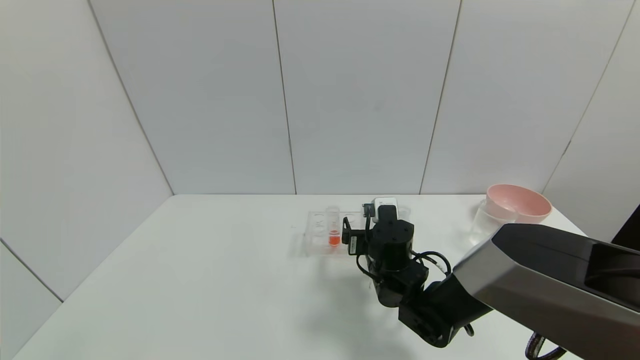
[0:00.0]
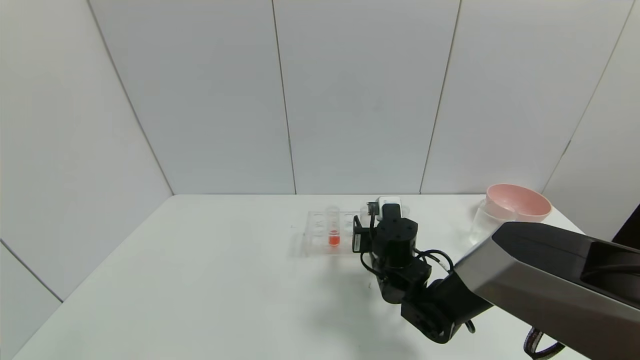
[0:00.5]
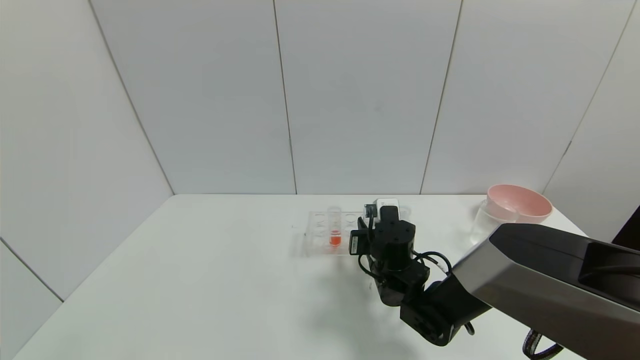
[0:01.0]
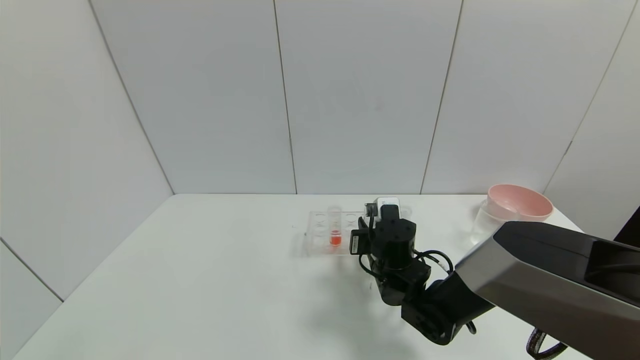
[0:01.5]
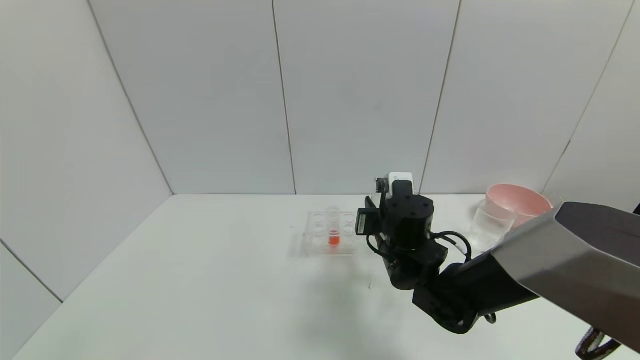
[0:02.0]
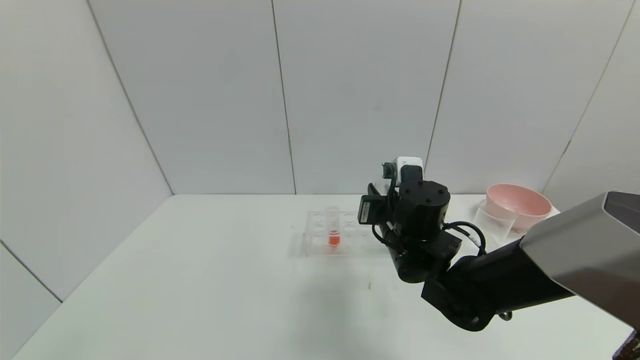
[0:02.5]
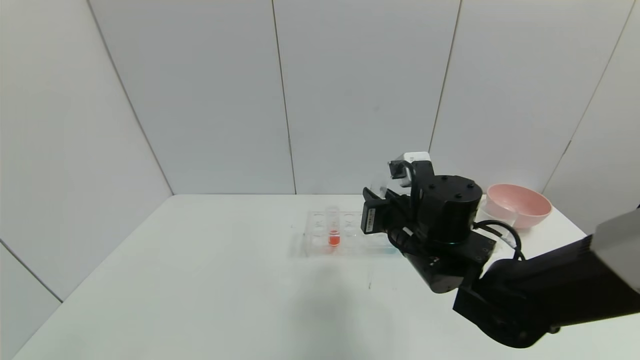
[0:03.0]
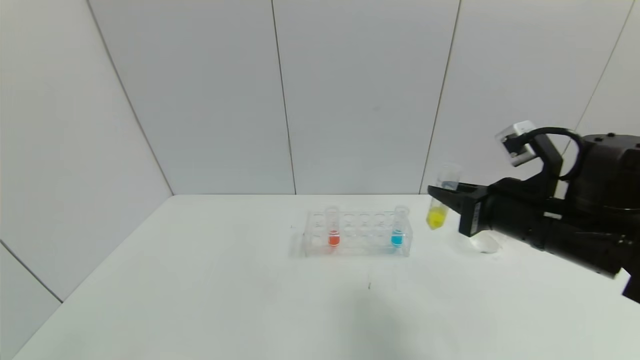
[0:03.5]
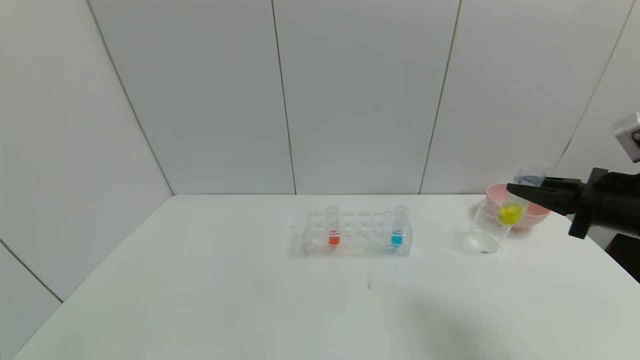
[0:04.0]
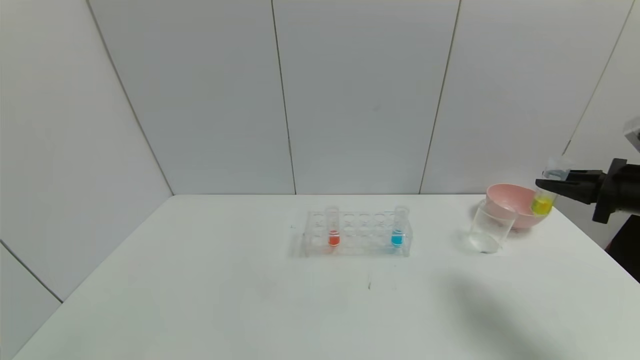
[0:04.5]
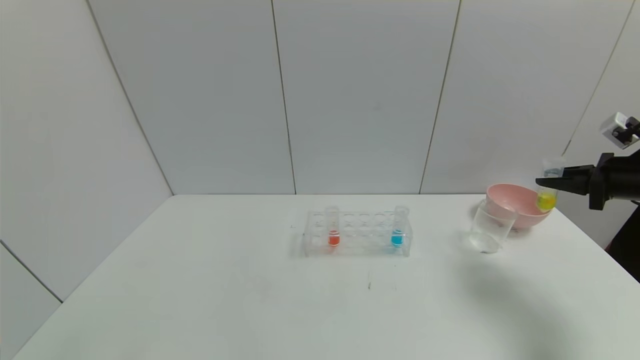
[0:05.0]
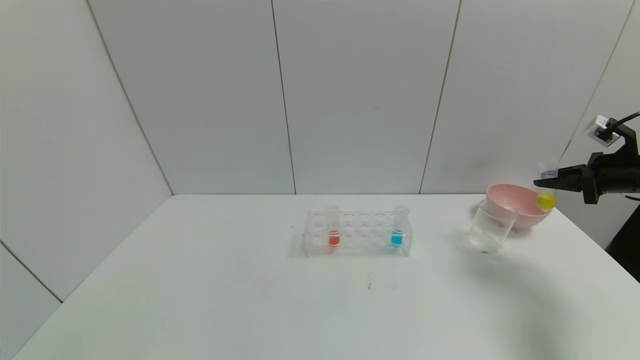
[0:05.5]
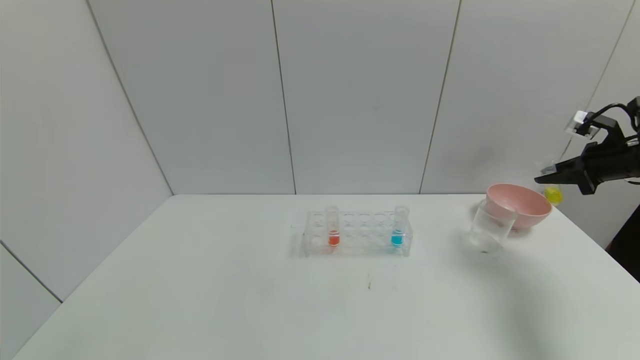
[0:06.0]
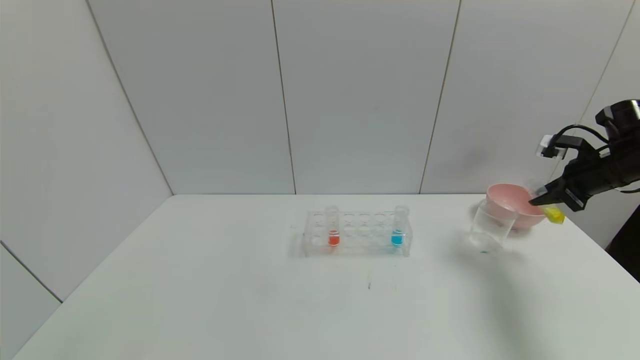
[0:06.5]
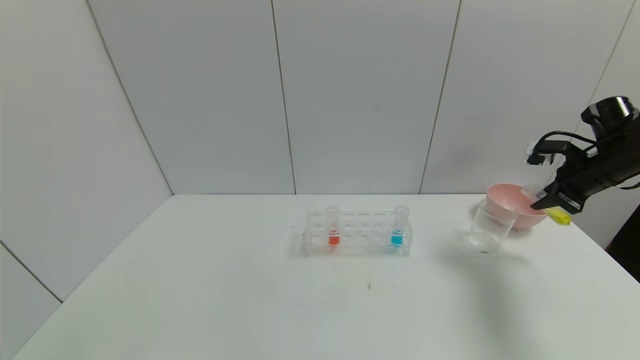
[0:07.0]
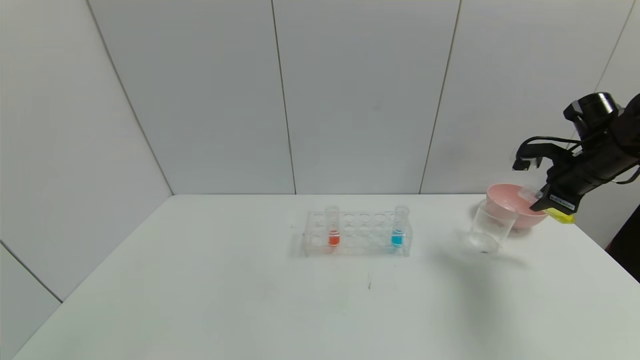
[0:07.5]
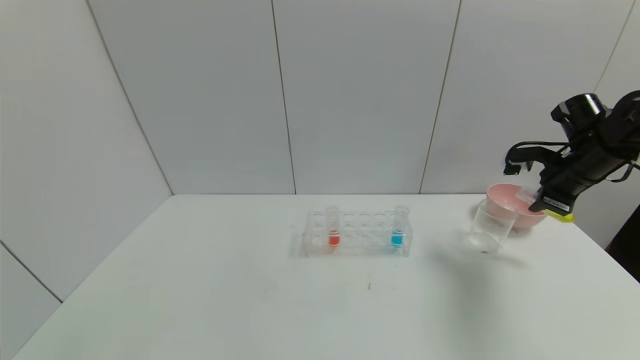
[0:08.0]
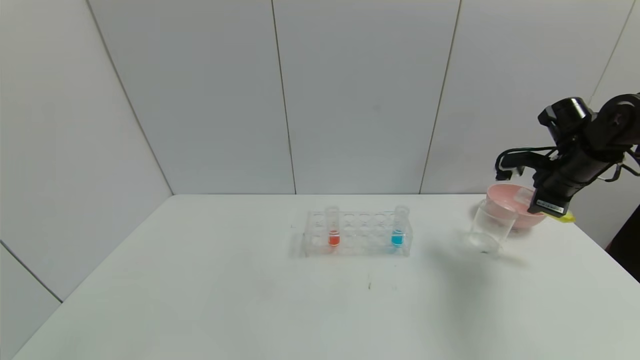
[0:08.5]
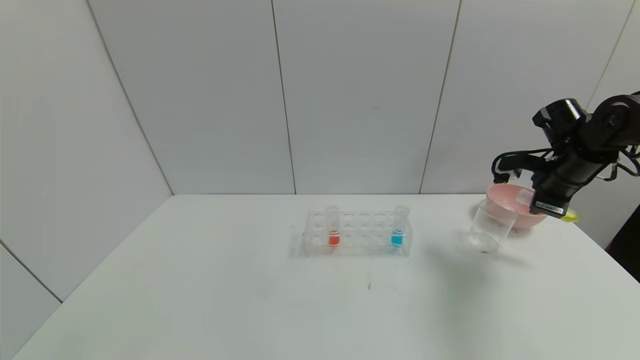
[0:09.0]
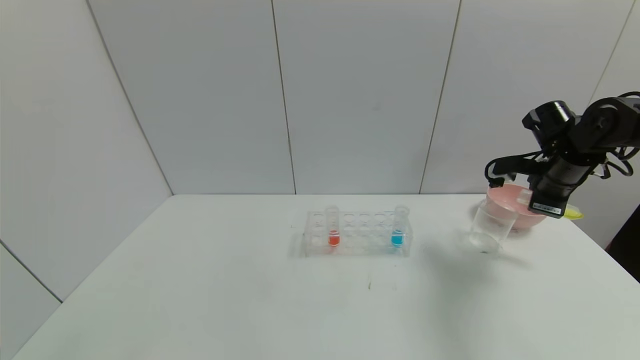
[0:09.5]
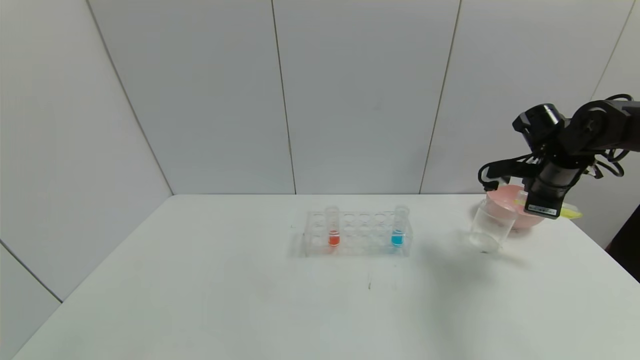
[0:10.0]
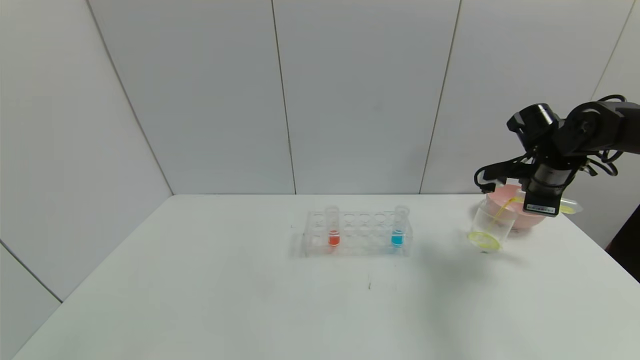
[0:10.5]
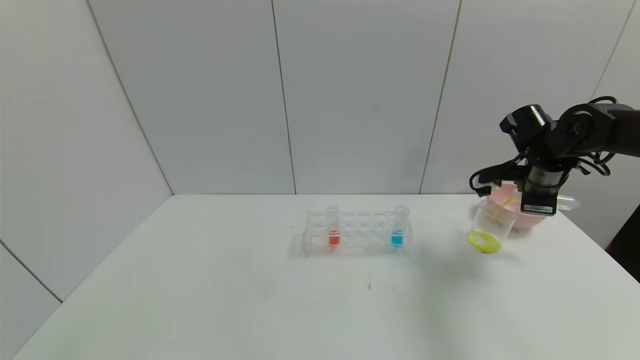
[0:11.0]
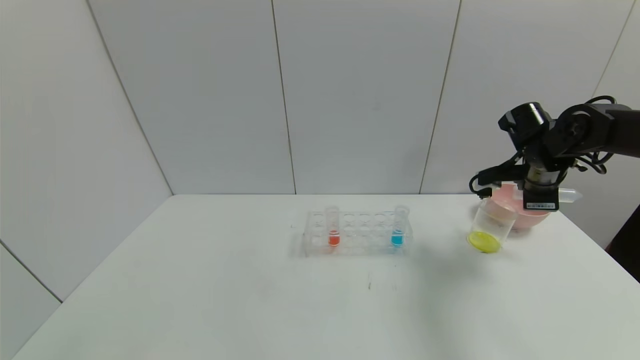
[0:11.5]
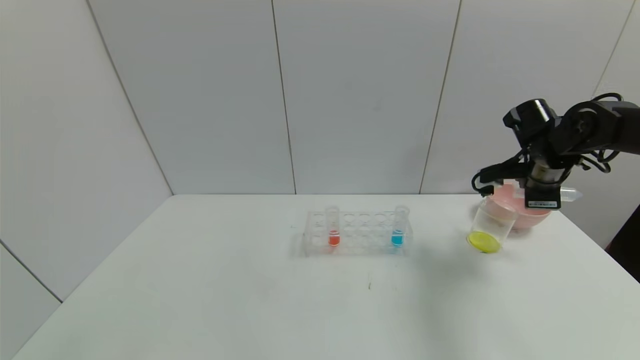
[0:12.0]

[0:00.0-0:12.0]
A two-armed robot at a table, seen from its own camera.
Task of the whole recording: pick up the test tube with yellow pigment and the test tube with blue pigment by grippers and pour them into the beaker.
Step, 0:01.5 to 0:11.5: Pour the yellow reagent into the graduated cylinder with the right gripper.
0:00.0 to 0:02.0: The right gripper travels upward by some 5 cm, and closes its fingers.
0:02.0 to 0:04.0: The right gripper shifts about 30 cm to the right and upward.
0:04.0 to 0:06.0: The right gripper moves forward and to the right, about 20 cm.
0:06.0 to 0:08.0: The right gripper travels to the left by roughly 10 cm.
0:08.0 to 0:10.0: The grippers make only small movements.
0:10.0 to 0:12.0: The grippers make only small movements.

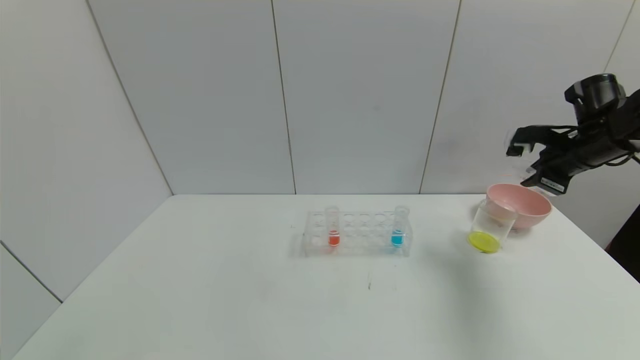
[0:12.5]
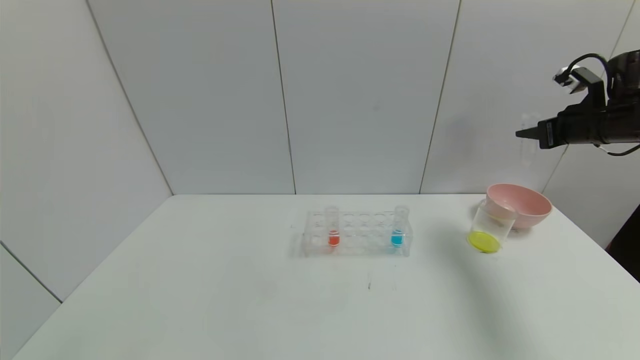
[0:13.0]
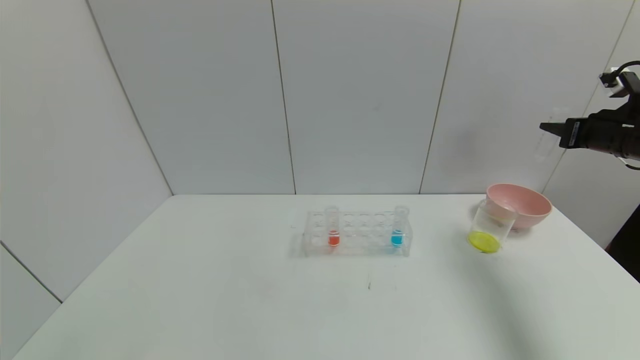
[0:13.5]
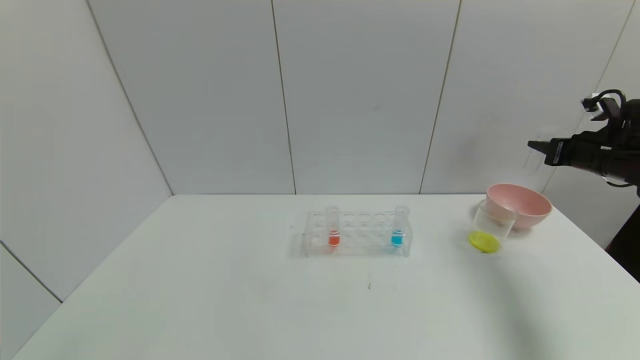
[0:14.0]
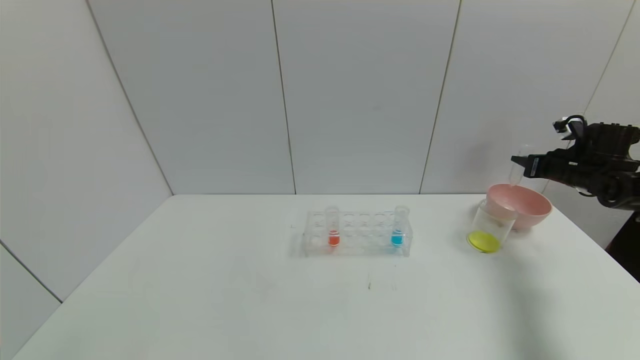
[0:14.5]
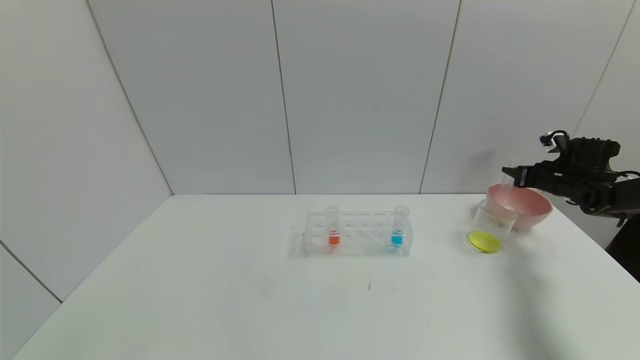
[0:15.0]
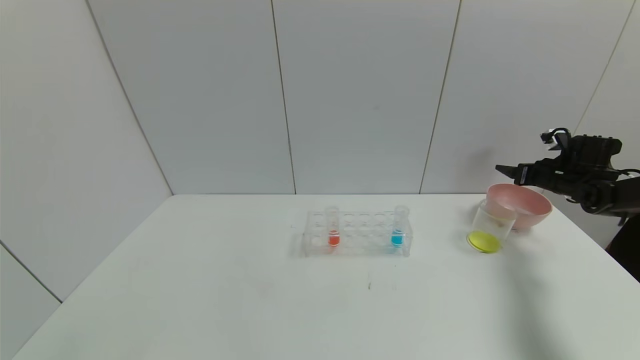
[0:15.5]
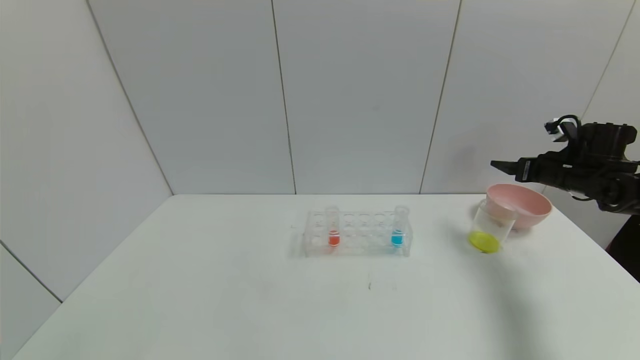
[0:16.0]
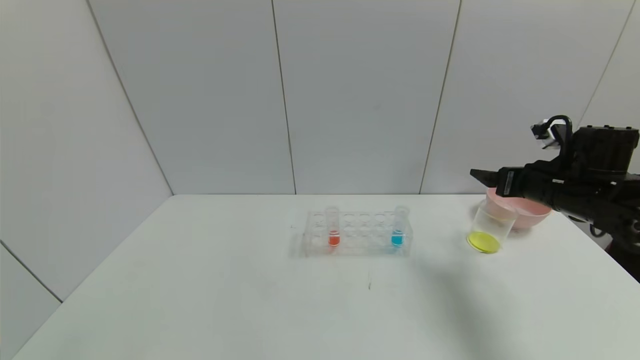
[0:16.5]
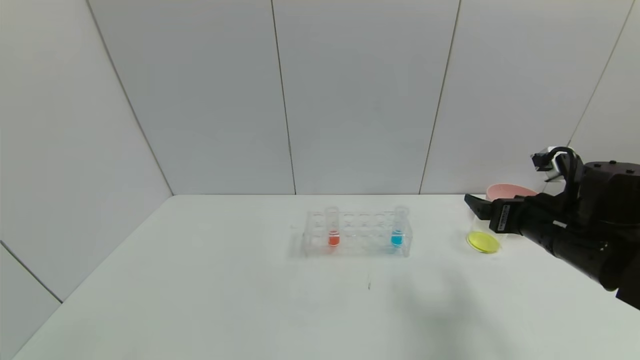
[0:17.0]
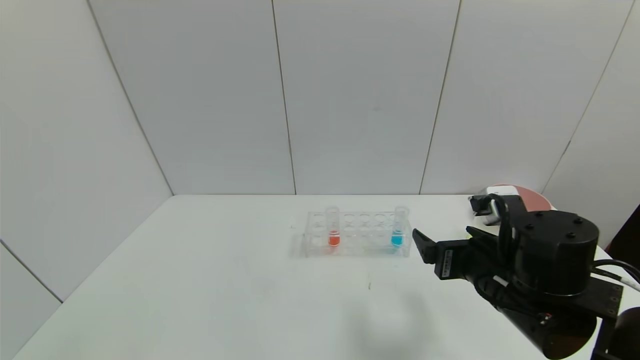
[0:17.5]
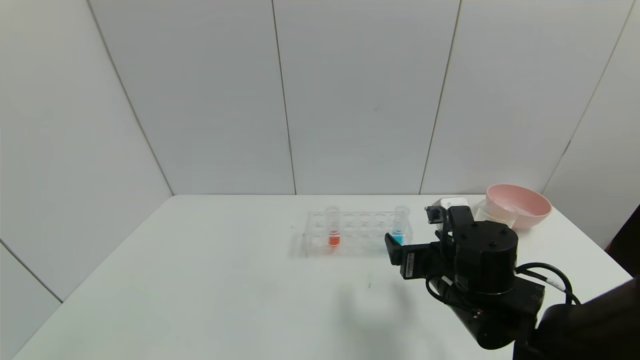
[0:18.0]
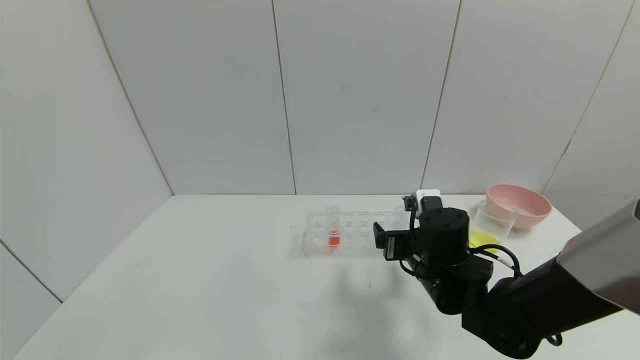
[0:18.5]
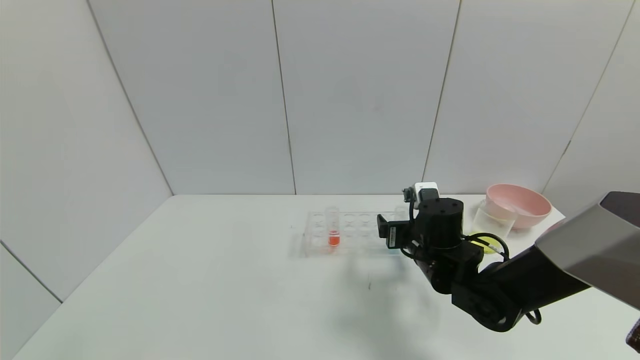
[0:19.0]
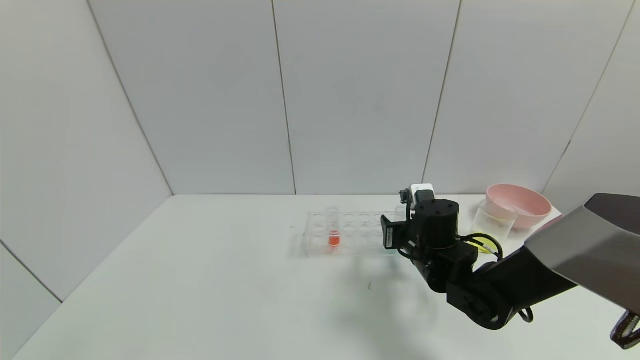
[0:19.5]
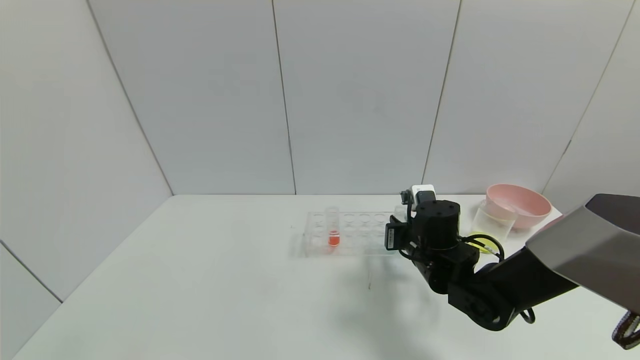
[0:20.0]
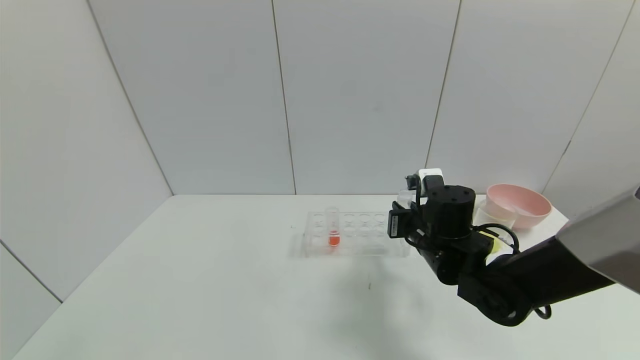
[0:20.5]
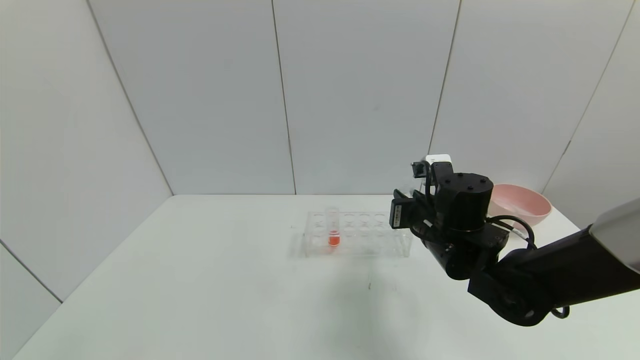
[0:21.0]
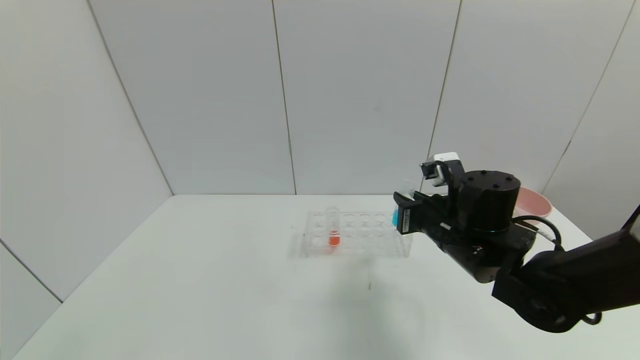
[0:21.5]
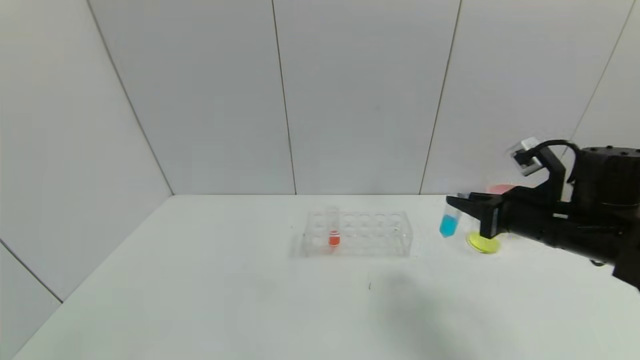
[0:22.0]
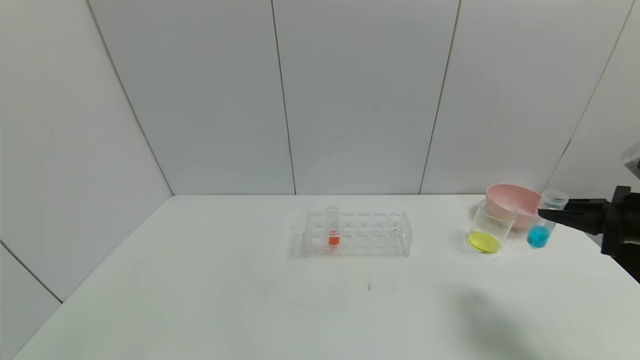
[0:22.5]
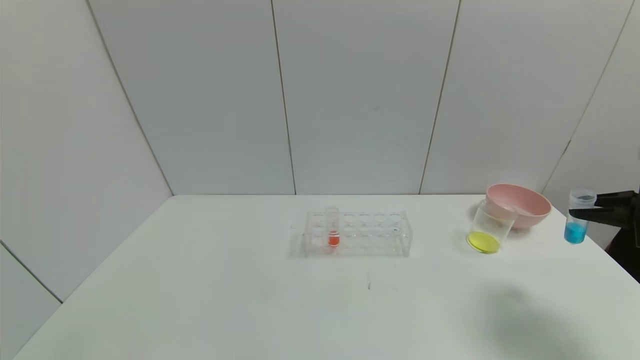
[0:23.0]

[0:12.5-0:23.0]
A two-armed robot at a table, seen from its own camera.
Task of the whole recording: pick up the test tube with yellow pigment and the test tube with blue pigment by grippers and pour them into the beaker.
Step, 0:12.5 to 0:15.5: Place the test tube into the bowl with the right gripper.
Step, 0:16.0 to 0:20.0: Grasp the blue reagent with the right gripper.
0:12.5 to 0:14.5: The right gripper travels to the right, downward and forward by about 15 cm.
0:14.5 to 0:16.5: The right gripper shifts roughly 15 cm to the left and backward, and opens.
0:16.5 to 0:19.0: The right gripper goes about 20 cm to the left and downward.
0:19.0 to 0:21.0: The right gripper shifts some 5 cm upward, and closes up.
0:21.0 to 0:23.0: The right gripper travels to the right by about 30 cm.
